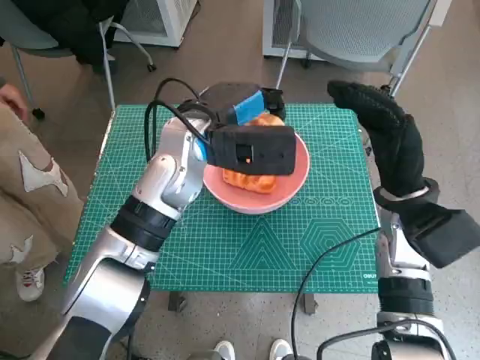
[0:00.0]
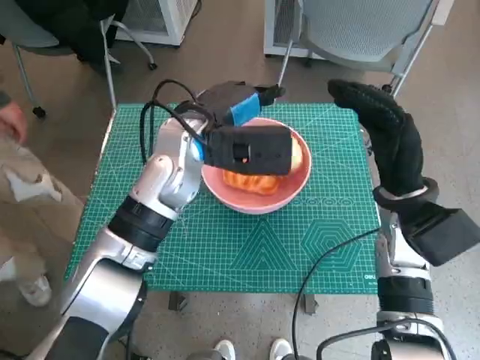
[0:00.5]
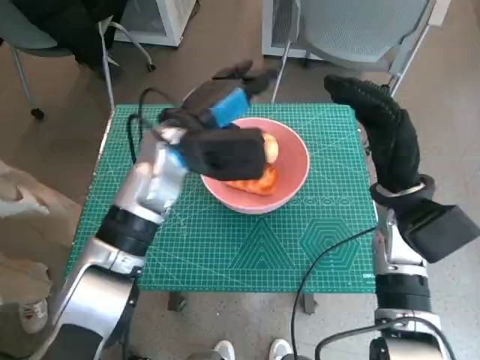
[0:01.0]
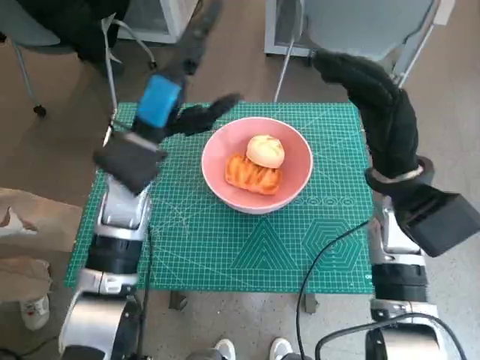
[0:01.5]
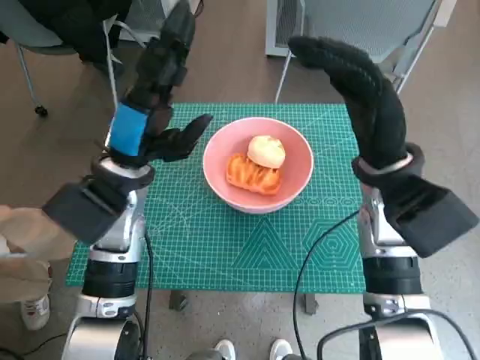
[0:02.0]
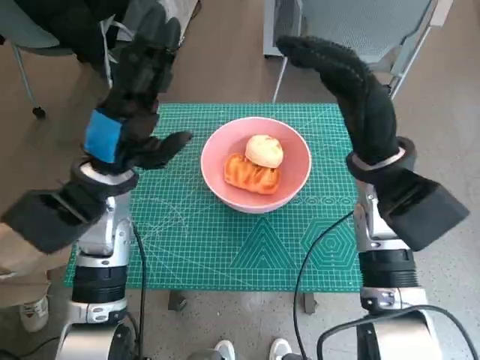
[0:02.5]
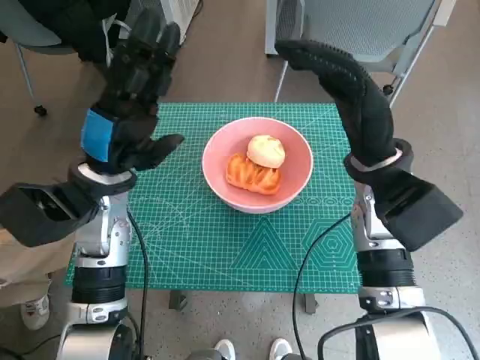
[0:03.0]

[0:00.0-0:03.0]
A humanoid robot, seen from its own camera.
0:00.0 to 0:01.5: The left hand is displaced to the left by some 5 cm.
0:01.5 to 0:03.0: The left hand ends up roughly 5 cm from where it was.

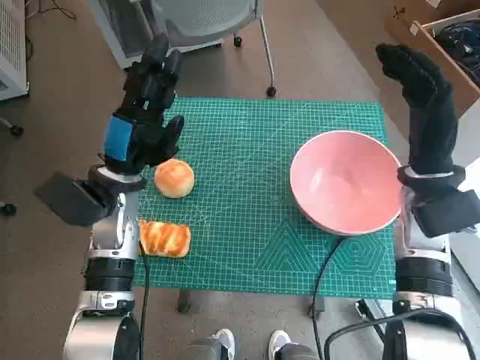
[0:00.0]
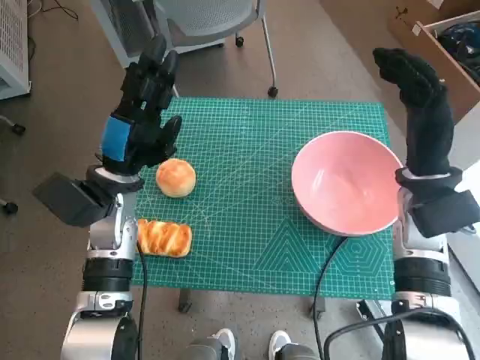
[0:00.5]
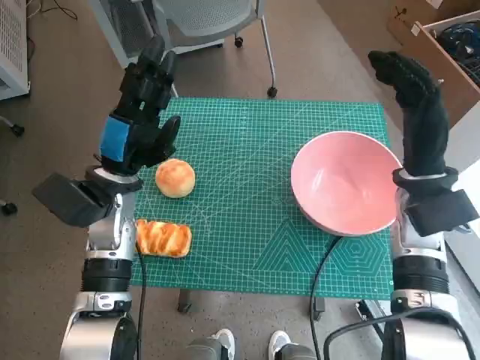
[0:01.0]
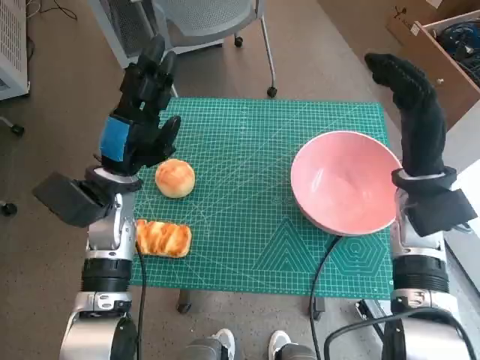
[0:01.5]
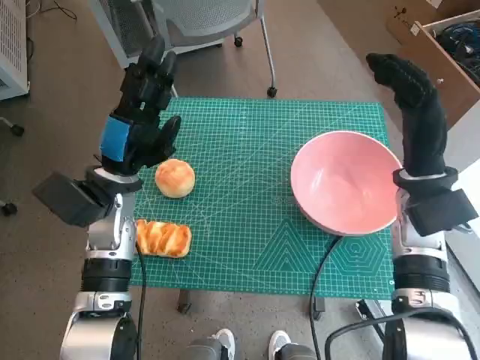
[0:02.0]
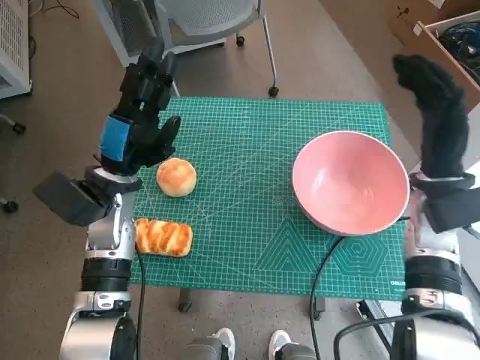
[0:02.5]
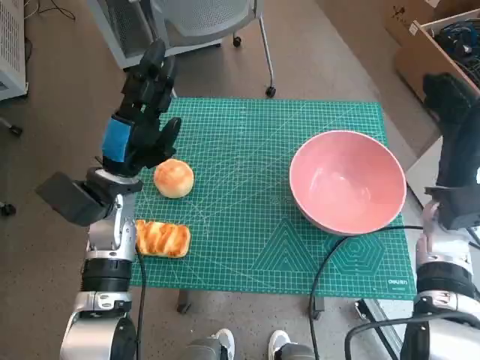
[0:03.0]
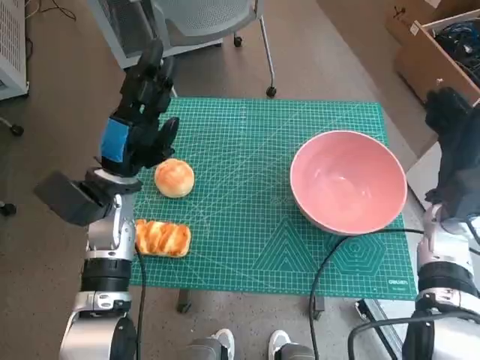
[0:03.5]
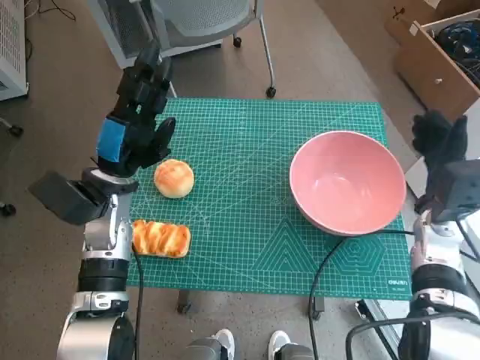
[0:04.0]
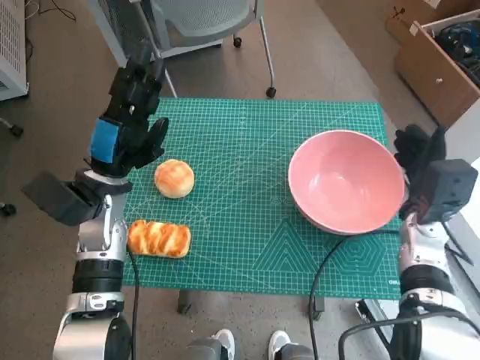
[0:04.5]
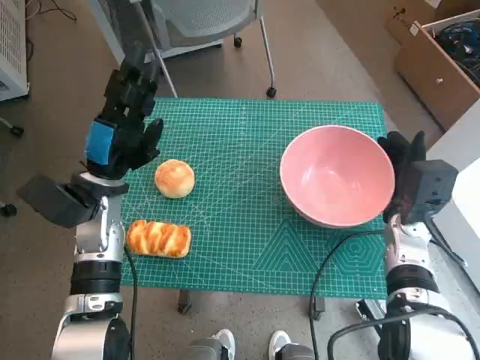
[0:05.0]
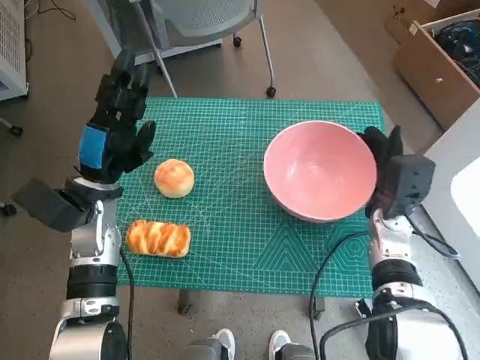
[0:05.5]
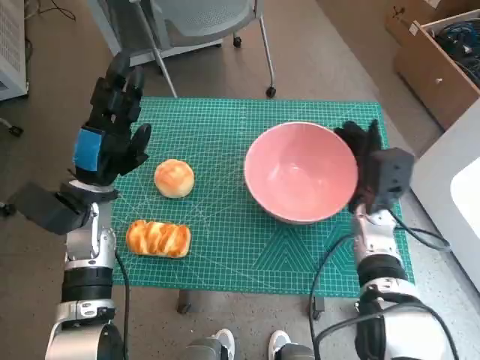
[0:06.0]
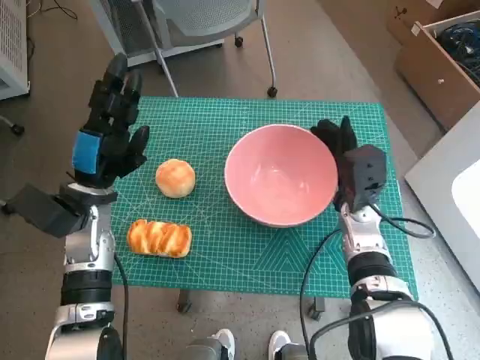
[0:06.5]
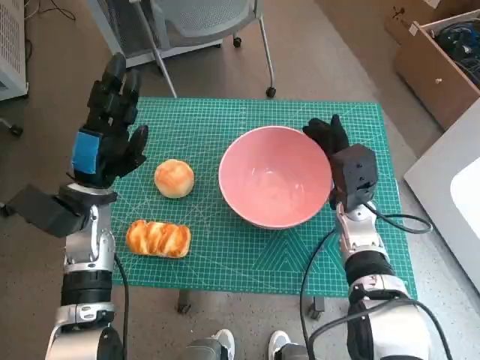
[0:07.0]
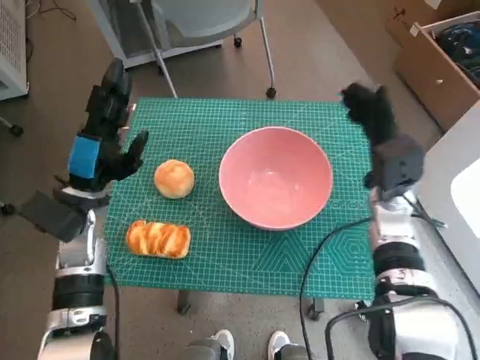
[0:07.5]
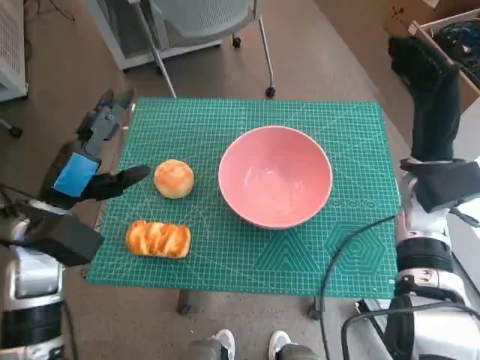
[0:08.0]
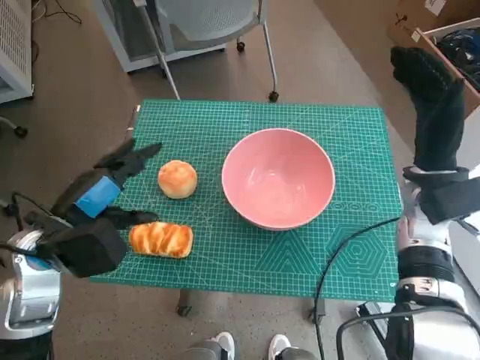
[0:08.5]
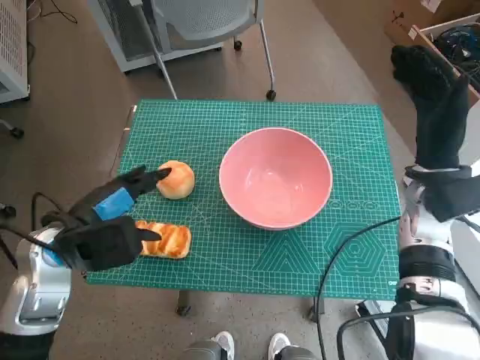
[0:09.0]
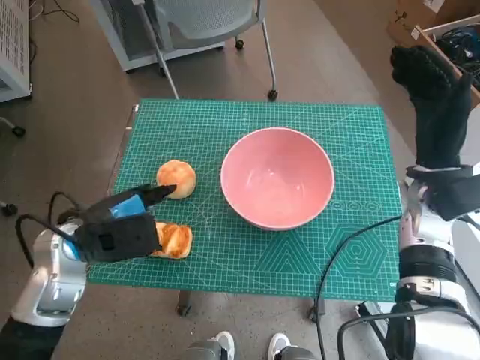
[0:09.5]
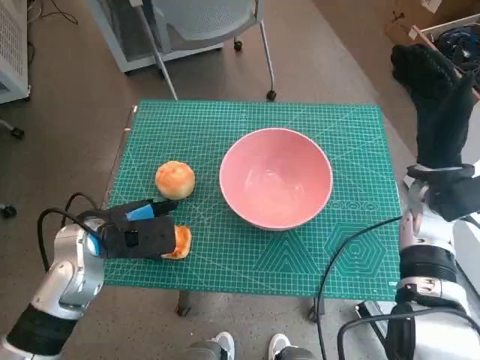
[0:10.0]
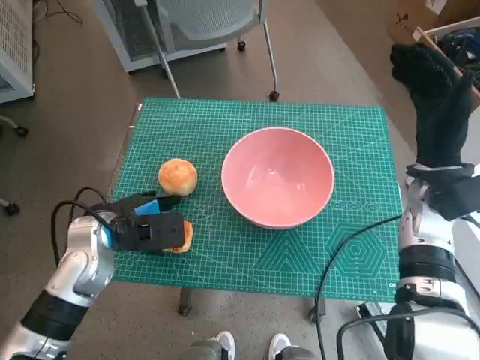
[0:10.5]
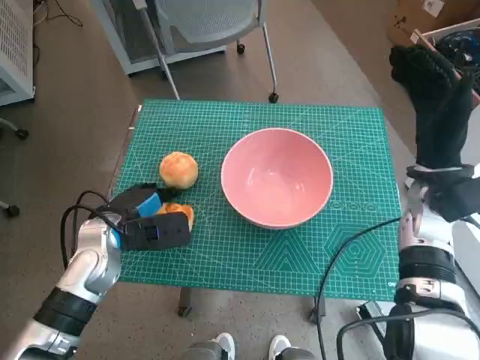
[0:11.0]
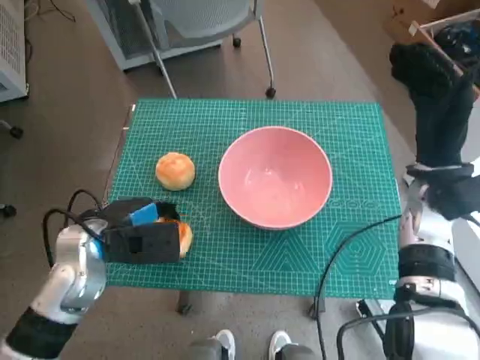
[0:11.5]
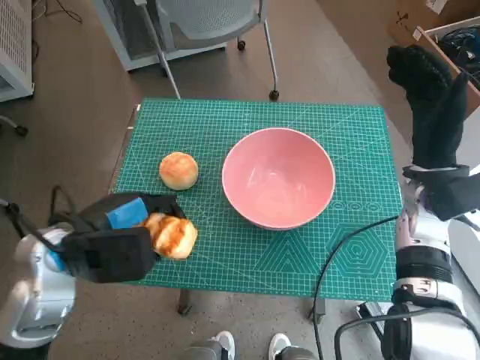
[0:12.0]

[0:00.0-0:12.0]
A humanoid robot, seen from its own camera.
Step, 0:00.0 to 0:07.0: Move the pink bowl to the center of table with right hand.
Step, 0:07.5 to 0:11.0: Grasp the long bread with left hand.
0:02.0 to 0:04.0: The right hand travels downward and to the right by about 10 cm.
0:04.0 to 0:06.0: The right hand heads to the left, covering roughly 10 cm.
0:06.0 to 0:08.0: The left hand ends up roughly 5 cm from where it was. Meanwhile the right hand travels upward by roughly 10 cm.
0:10.0 to 0:12.0: The left hand ends up about 5 cm from where it was.

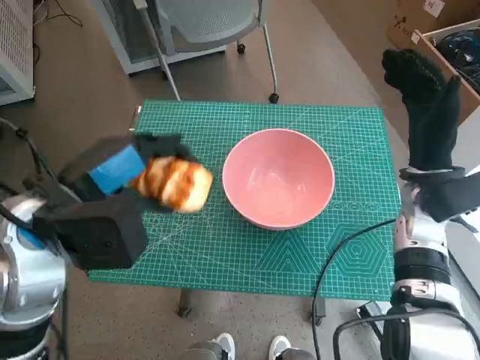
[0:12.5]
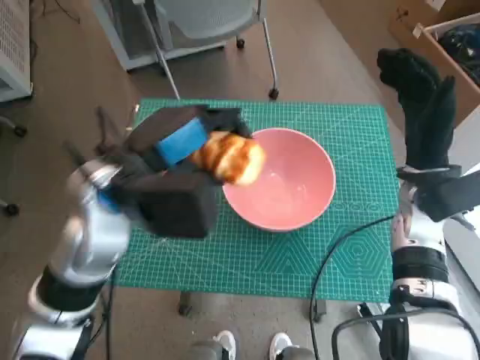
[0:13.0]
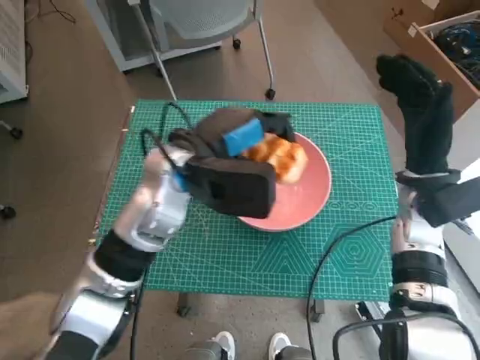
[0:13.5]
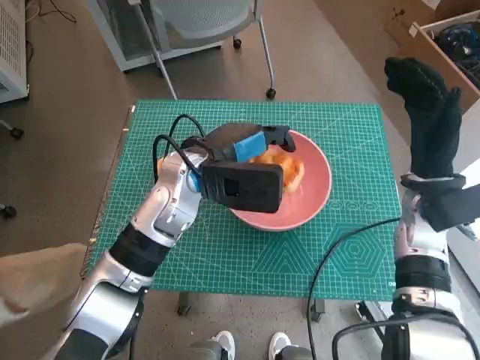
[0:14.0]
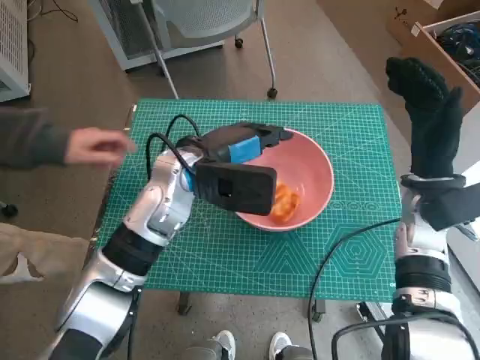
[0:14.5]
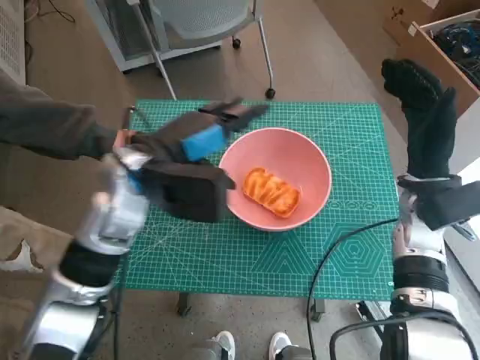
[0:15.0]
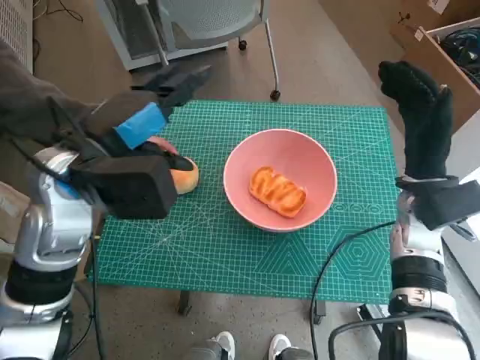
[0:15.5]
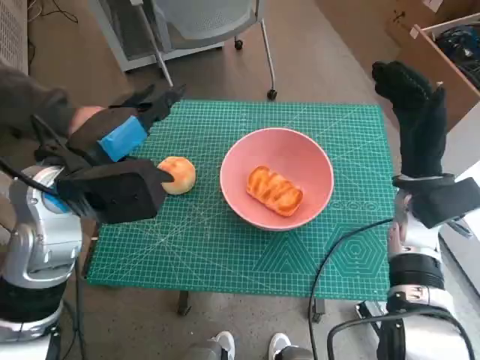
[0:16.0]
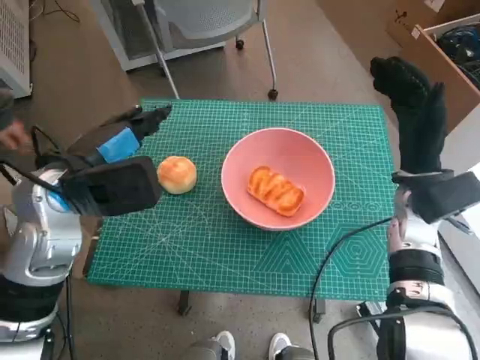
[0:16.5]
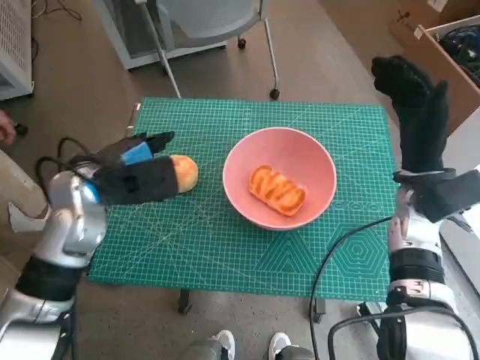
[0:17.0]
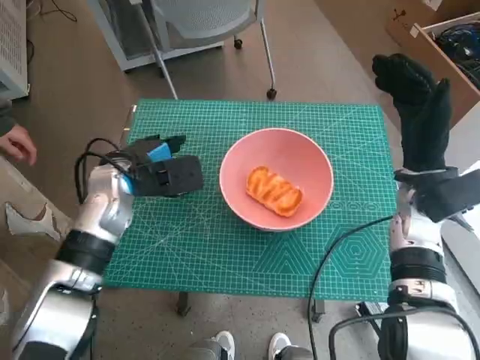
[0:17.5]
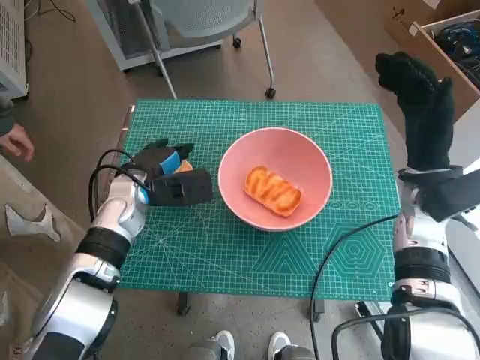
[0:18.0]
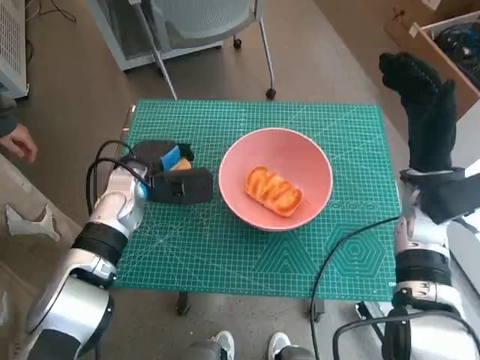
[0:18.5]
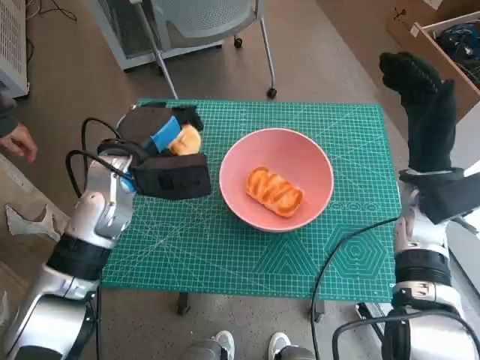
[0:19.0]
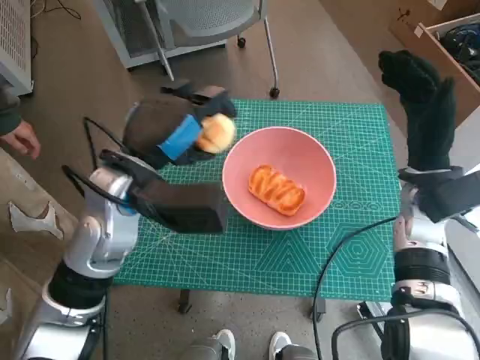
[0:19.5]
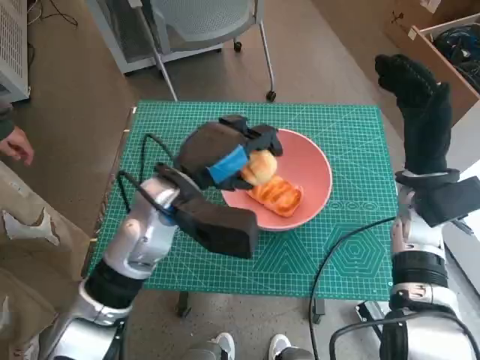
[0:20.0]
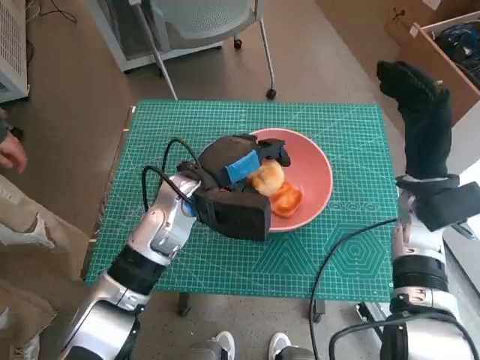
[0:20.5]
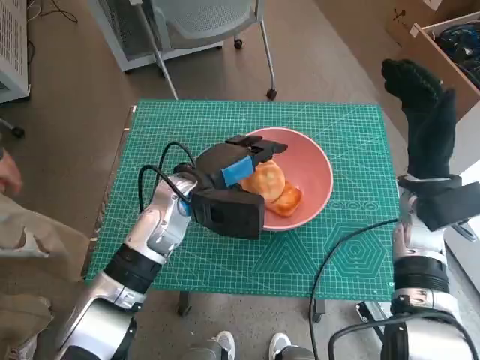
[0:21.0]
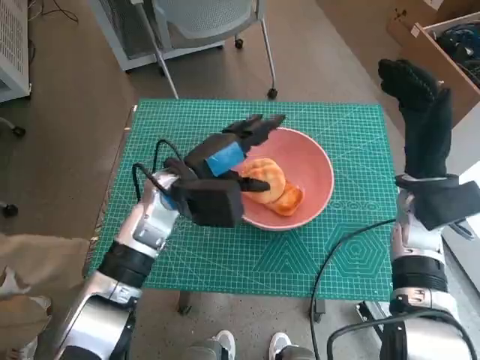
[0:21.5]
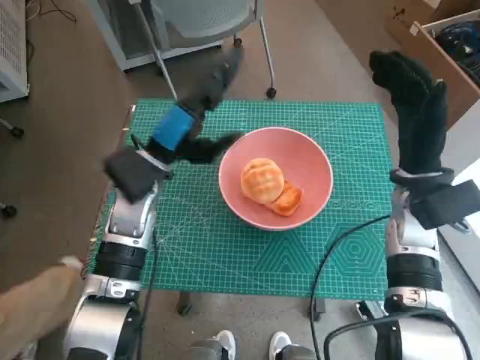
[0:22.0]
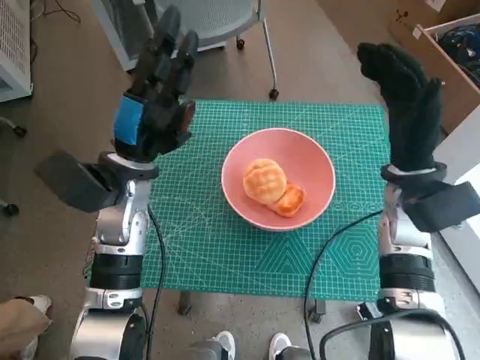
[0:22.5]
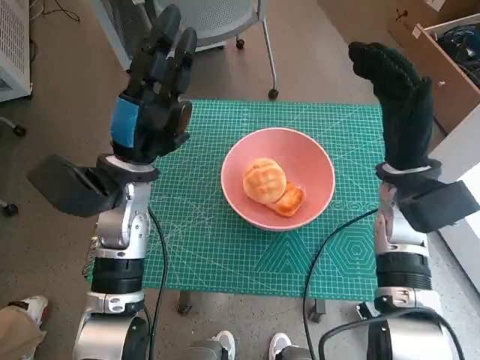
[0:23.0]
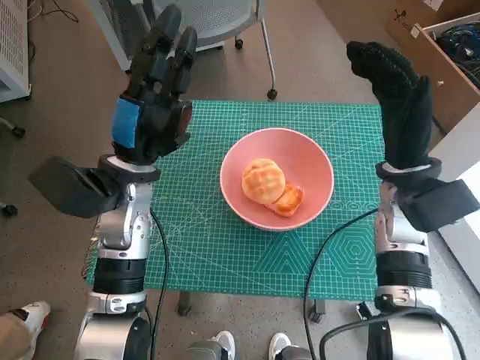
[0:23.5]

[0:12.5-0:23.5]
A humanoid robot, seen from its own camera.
Step, 0:12.5 to 0:14.0: Place the long bread in pink bowl with left hand.
Step, 0:14.5 to 0:18.0: Grasp the round bread with left hand.
Step, 0:18.5 to 0:21.0: Place the round bread in pink bowl with left hand.
0:12.5 to 0:14.5: The left hand heads to the right, forward and downward, covering some 15 cm.
0:14.5 to 0:16.0: The left hand travels to the left, backward and upward by approximately 15 cm.
0:16.0 to 0:18.0: The left hand is displaced downward and forward by some 15 cm.
0:18.0 to 0:20.0: The left hand shifts some 15 cm upward, to the right and backward.
0:20.0 to 0:21.5: The left hand shifts by some 5 cm.
0:21.5 to 0:23.5: The left hand is displaced to the left by roughly 5 cm.
